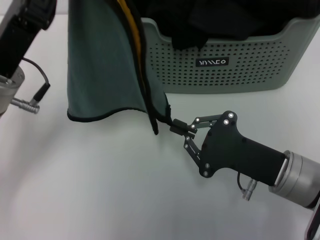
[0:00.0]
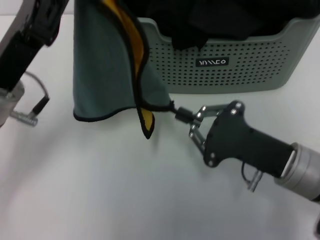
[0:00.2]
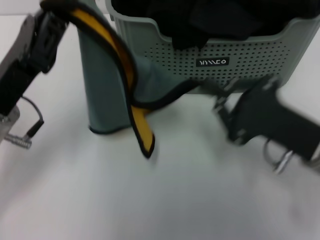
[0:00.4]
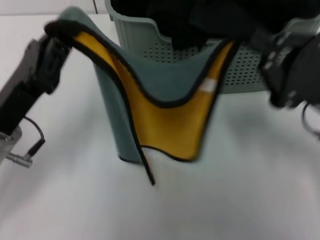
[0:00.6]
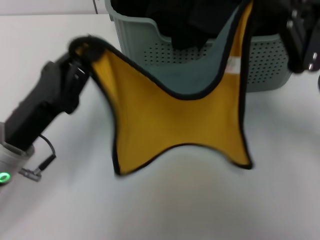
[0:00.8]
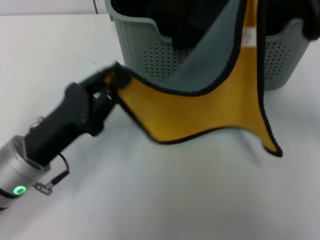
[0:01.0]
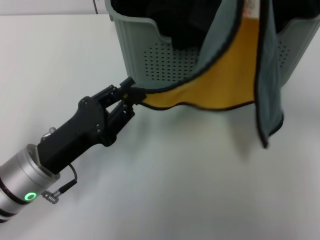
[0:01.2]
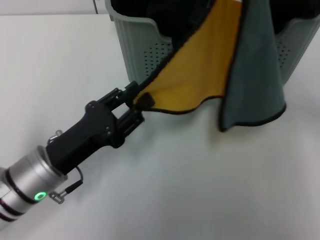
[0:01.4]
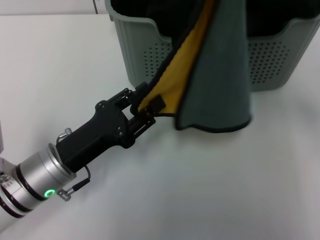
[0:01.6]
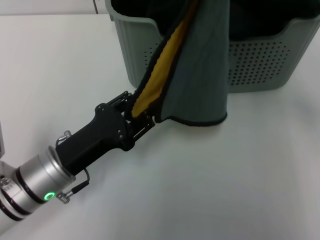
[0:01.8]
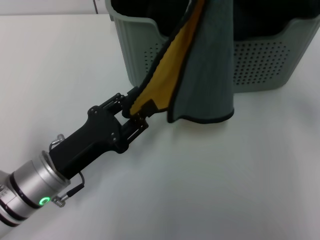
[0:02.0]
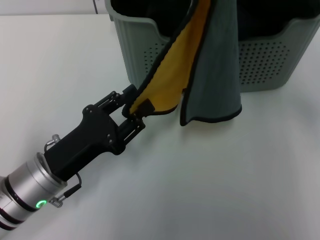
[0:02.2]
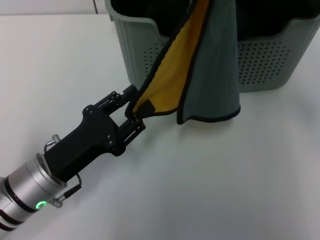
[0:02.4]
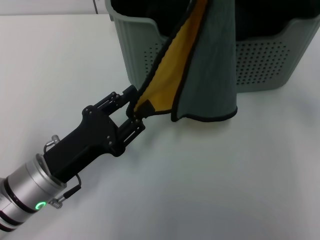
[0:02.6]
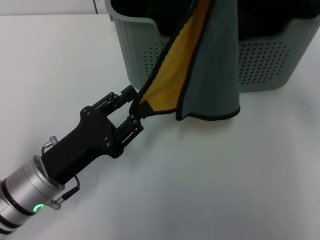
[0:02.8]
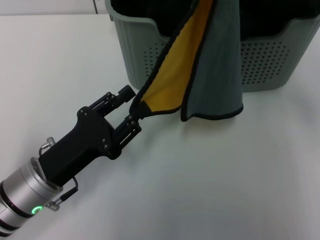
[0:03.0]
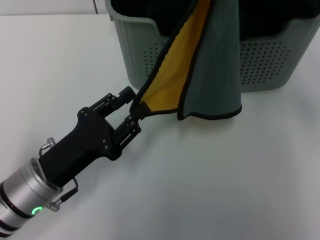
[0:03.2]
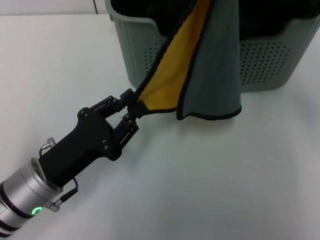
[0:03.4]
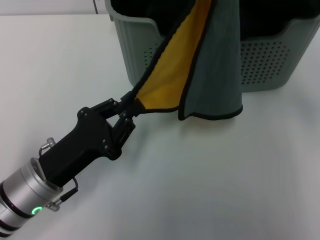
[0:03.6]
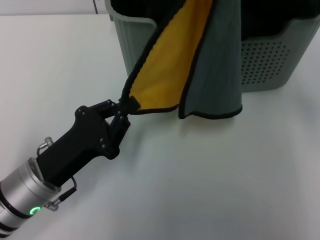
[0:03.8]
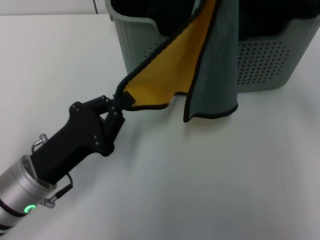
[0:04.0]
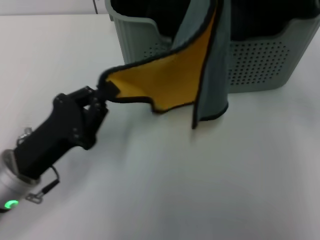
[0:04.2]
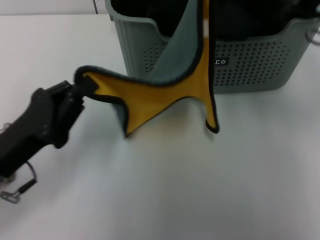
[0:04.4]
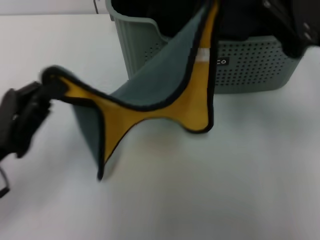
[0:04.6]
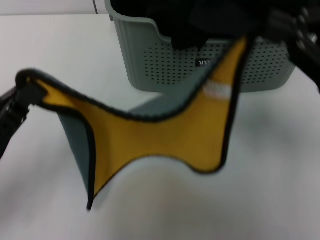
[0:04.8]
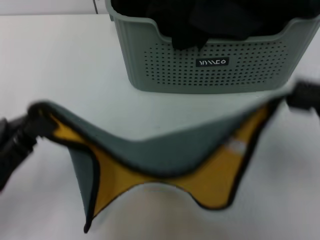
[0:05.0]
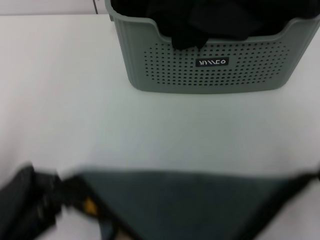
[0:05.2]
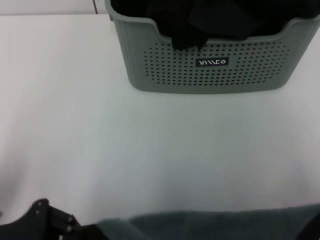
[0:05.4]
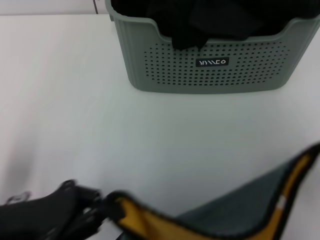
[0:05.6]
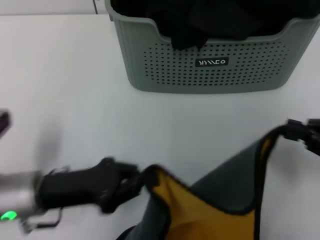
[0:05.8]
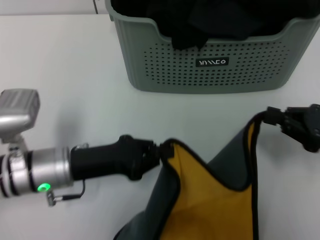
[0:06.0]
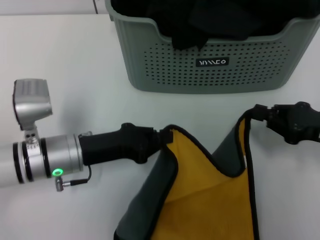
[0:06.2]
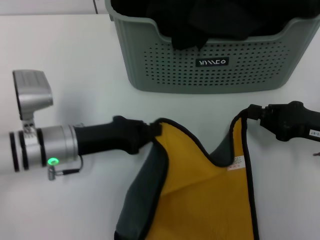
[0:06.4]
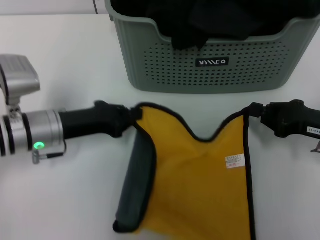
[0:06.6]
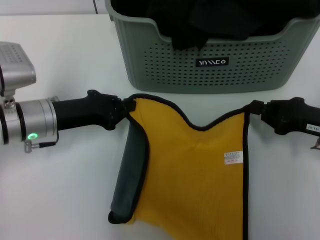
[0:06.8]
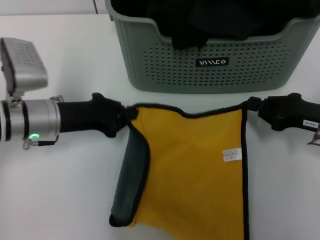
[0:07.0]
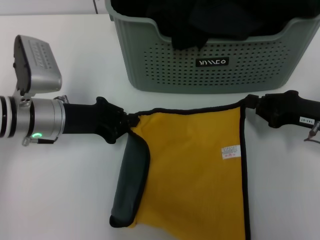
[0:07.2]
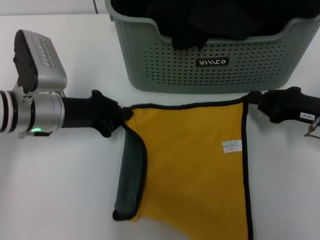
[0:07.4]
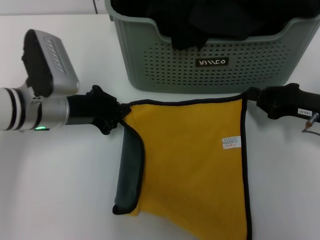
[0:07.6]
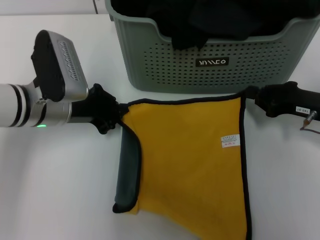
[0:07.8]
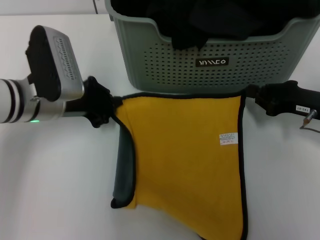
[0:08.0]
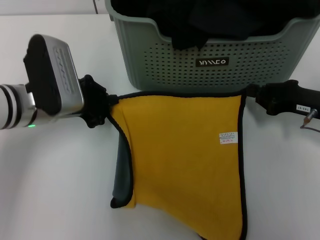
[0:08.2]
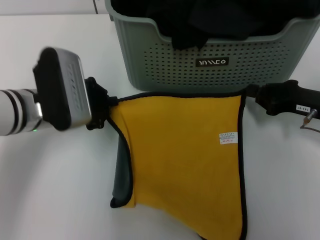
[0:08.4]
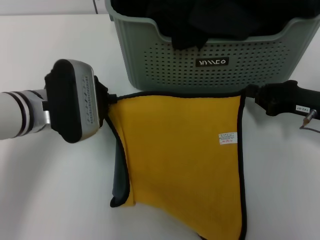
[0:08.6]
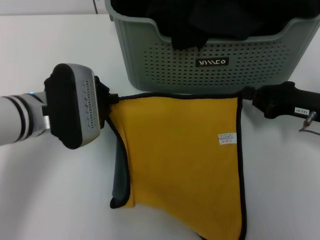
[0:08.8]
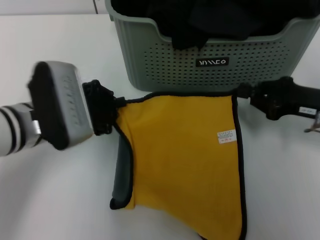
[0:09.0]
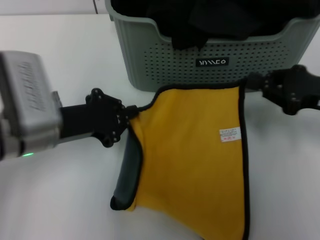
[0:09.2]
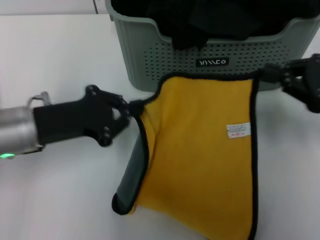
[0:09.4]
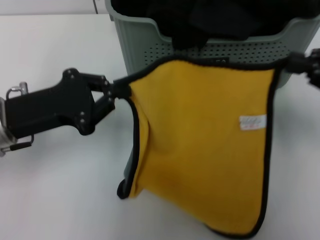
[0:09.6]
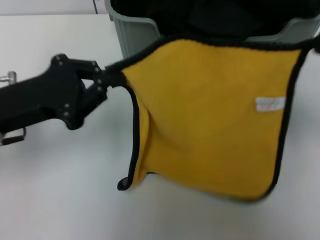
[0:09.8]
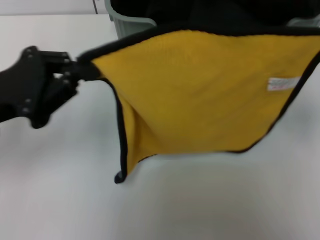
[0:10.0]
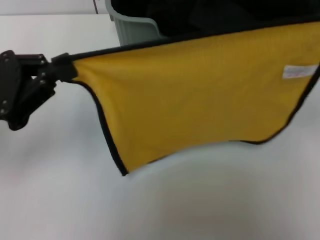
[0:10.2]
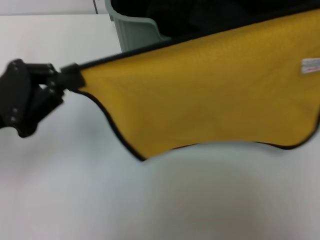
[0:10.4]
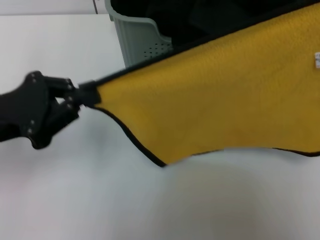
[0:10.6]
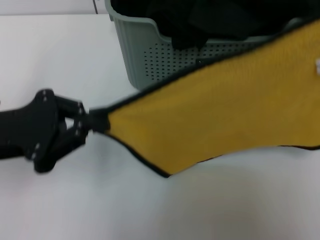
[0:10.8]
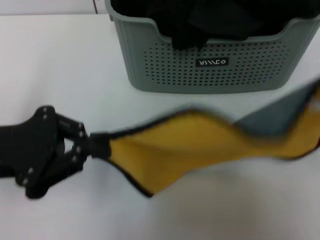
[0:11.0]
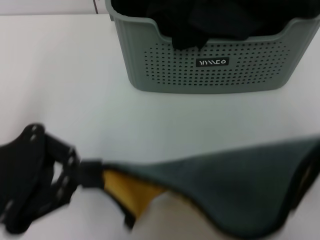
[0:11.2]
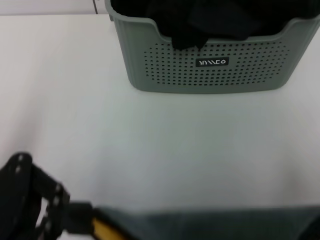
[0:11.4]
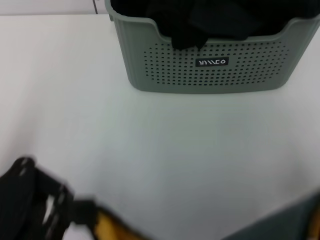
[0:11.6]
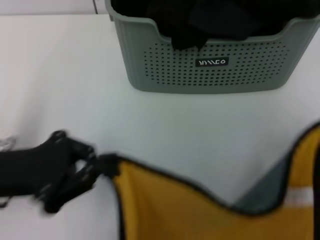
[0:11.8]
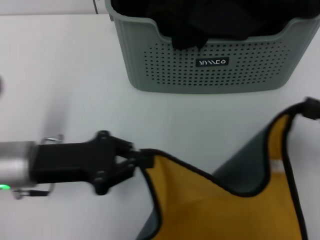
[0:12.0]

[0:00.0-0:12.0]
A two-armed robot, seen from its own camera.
Task of the whole recording: pick up the towel from the storage box and lay it flat on the table.
0:00.0 to 0:01.6: The right gripper is displaced upward and forward by approximately 20 cm, while the left gripper goes roughly 10 cm downward and backward, and opens up.
0:01.6 to 0:03.0: The grippers stay close to where they were, moving slightly.
0:03.0 to 0:04.4: The left gripper changes place by about 5 cm, and closes its fingers.
0:04.4 to 0:06.0: The left gripper shifts by some 5 cm, while the right gripper is displaced downward, to the right and backward by roughly 15 cm.
0:06.0 to 0:07.6: Both grippers travel together forward, about 10 cm.
0:07.6 to 0:09.0: The left gripper ends up about 5 cm from where it was.
0:09.0 to 0:10.4: The left gripper goes roughly 10 cm to the left; the right gripper goes about 15 cm upward and to the right.
0:10.4 to 0:12.0: The left gripper travels downward and to the right by some 10 cm. Meanwhile the right gripper is displaced downward by approximately 10 cm.

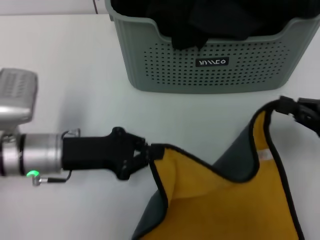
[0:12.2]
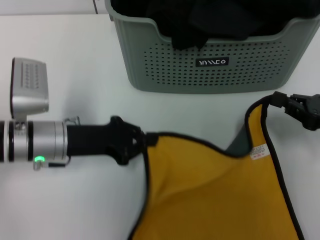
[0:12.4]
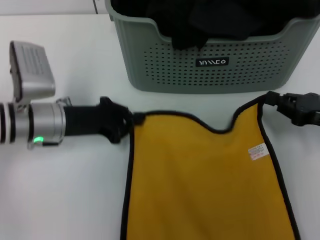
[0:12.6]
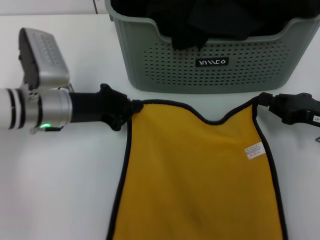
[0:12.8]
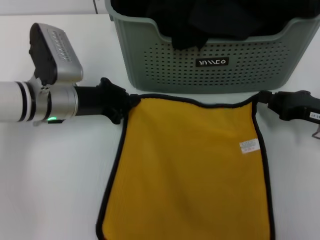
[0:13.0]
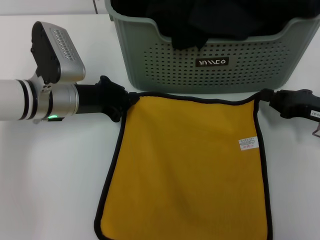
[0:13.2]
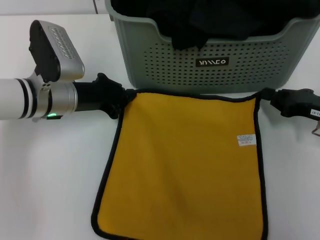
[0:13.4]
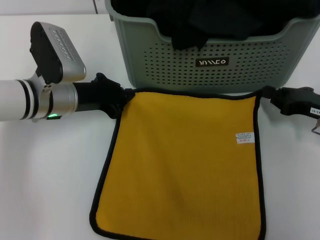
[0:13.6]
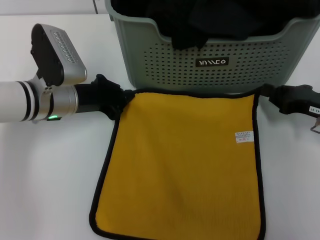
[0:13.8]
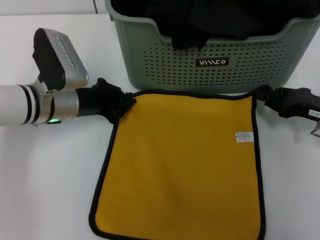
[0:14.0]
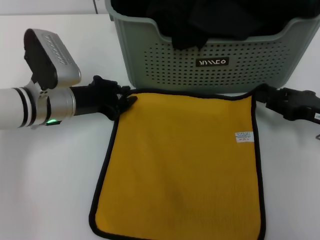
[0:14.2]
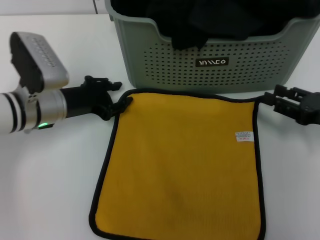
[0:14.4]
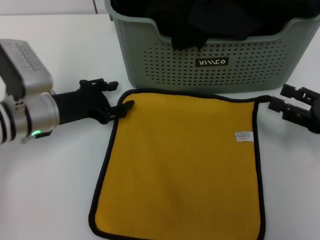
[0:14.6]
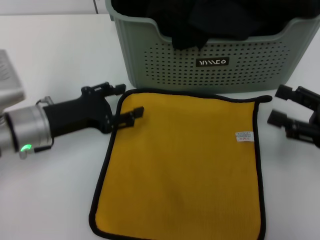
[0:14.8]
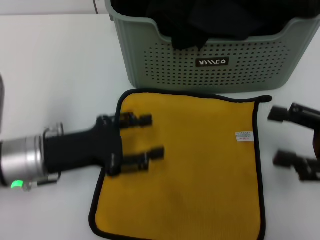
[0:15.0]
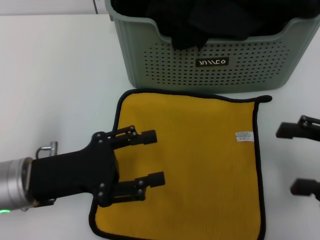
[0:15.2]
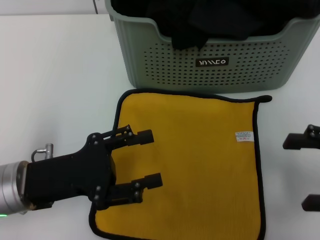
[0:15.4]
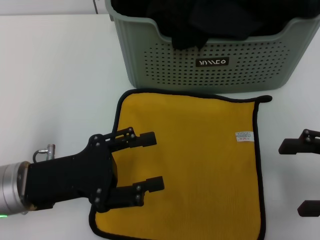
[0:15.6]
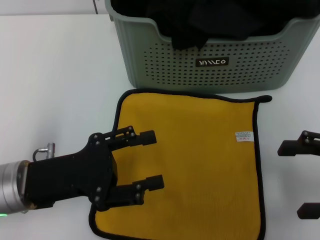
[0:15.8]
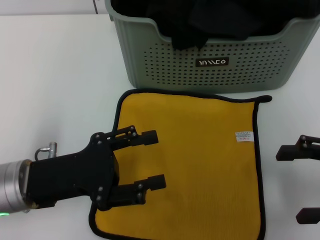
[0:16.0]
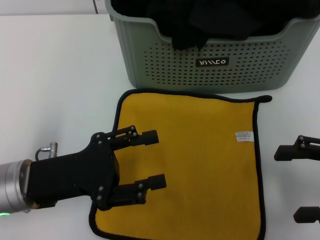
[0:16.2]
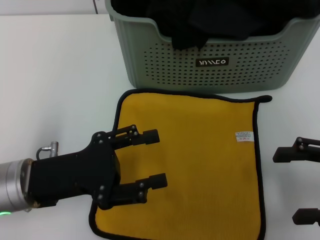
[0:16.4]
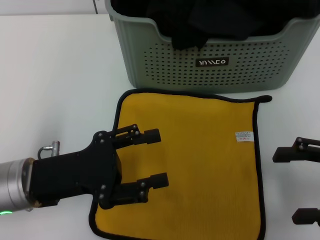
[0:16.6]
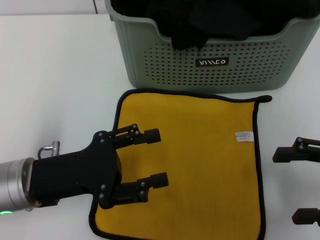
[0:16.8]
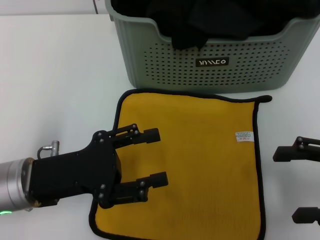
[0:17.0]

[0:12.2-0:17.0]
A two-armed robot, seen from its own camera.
Task of the whole recording: pick up the towel from the storage box and lay it flat on the table.
Step, 0:12.2 to 0:14.2: Spread the towel flat with the right gripper.
0:12.2 to 0:13.8: The two grippers go approximately 10 cm forward.
0:13.8 to 0:15.4: The right gripper shifts approximately 15 cm backward and upward, and opens its fingers. Meanwhile the left gripper shifts some 15 cm backward, and opens.
0:15.4 to 0:17.0: The two grippers keep their place.
